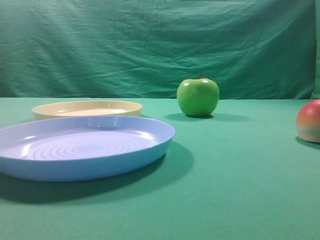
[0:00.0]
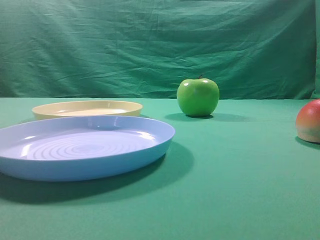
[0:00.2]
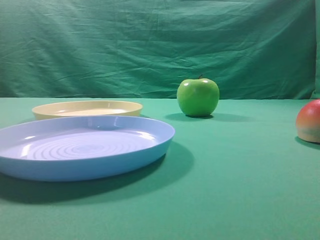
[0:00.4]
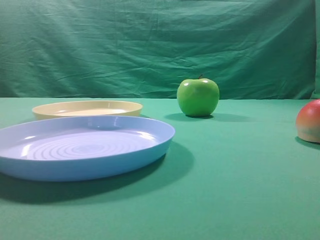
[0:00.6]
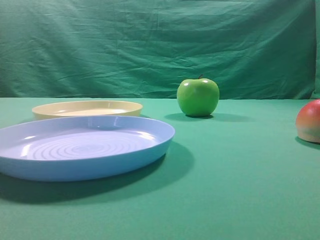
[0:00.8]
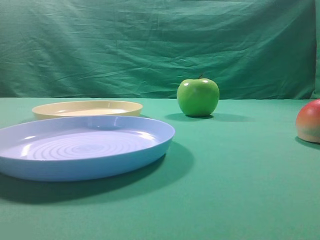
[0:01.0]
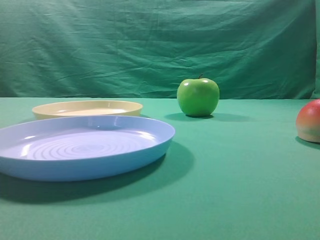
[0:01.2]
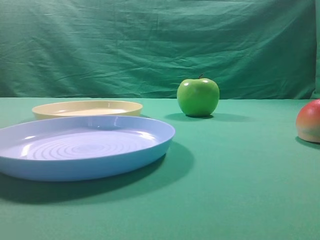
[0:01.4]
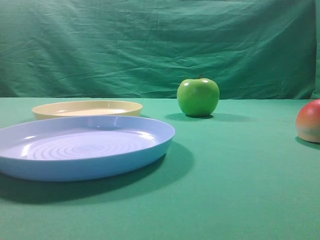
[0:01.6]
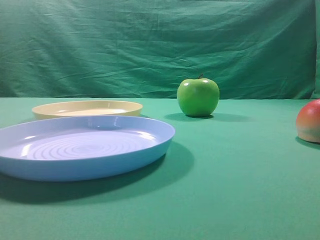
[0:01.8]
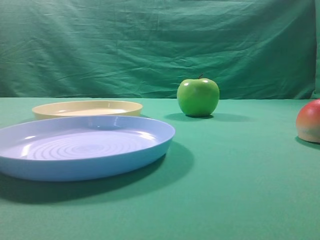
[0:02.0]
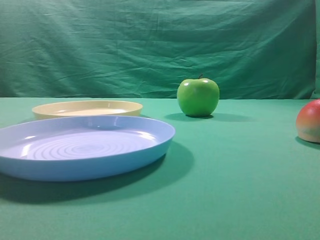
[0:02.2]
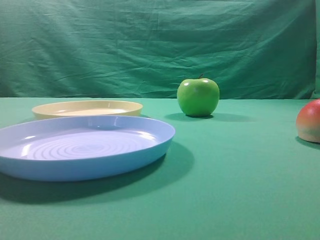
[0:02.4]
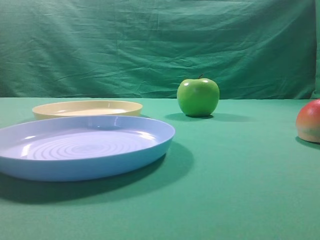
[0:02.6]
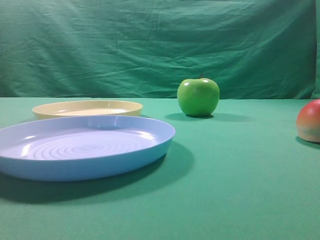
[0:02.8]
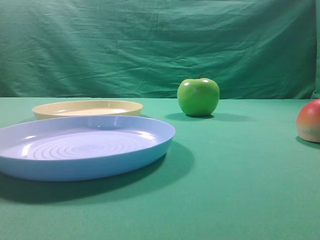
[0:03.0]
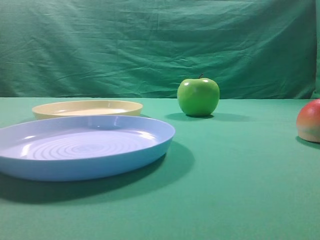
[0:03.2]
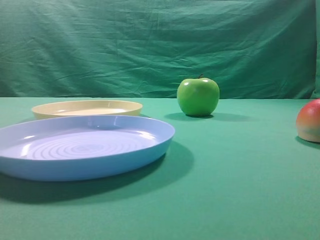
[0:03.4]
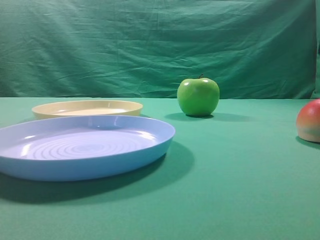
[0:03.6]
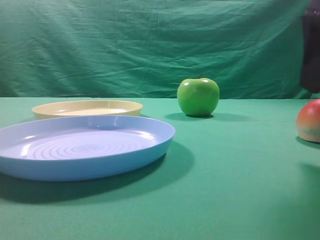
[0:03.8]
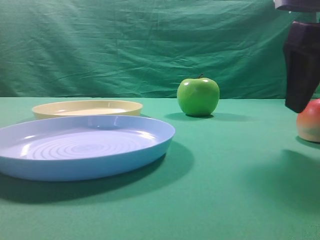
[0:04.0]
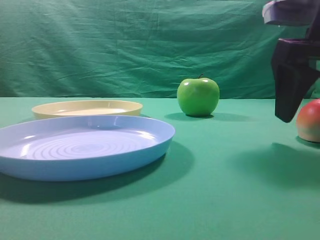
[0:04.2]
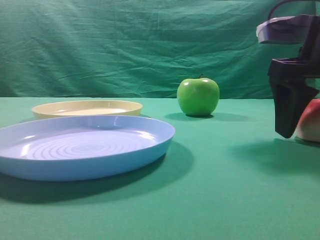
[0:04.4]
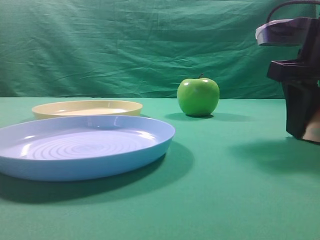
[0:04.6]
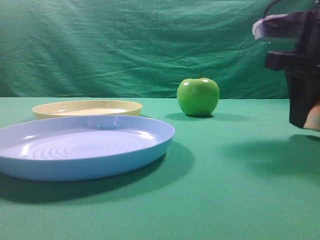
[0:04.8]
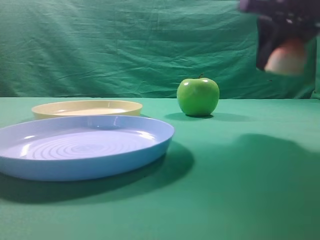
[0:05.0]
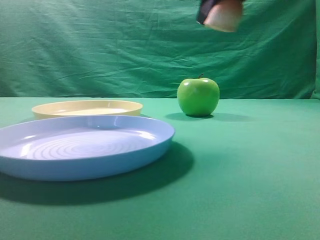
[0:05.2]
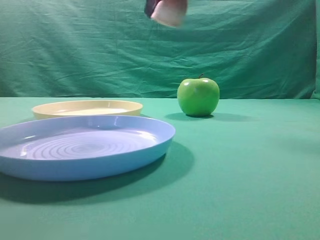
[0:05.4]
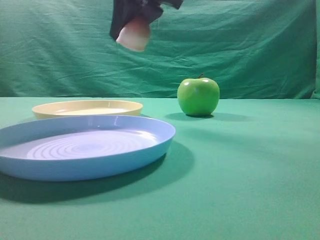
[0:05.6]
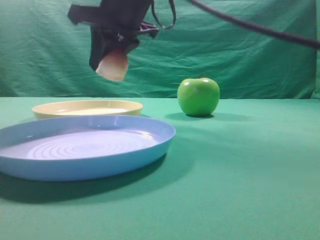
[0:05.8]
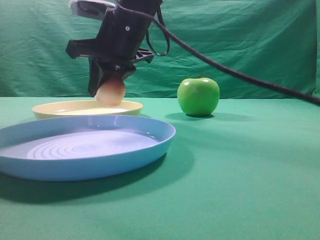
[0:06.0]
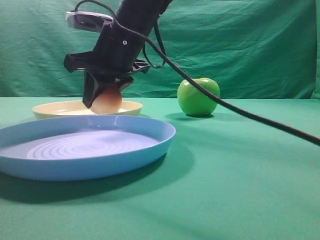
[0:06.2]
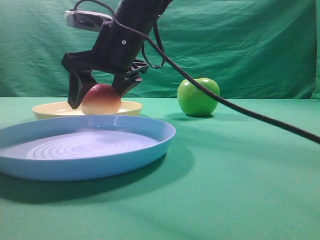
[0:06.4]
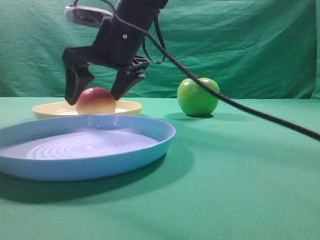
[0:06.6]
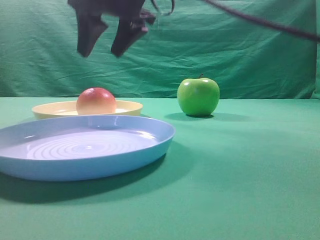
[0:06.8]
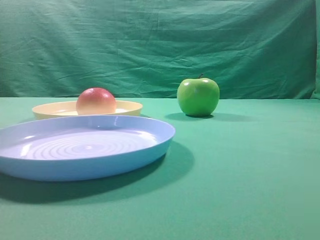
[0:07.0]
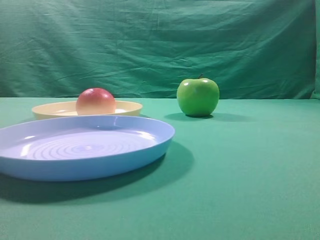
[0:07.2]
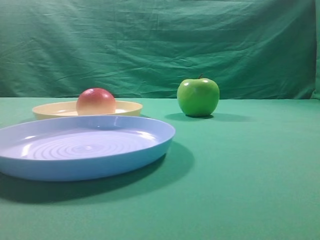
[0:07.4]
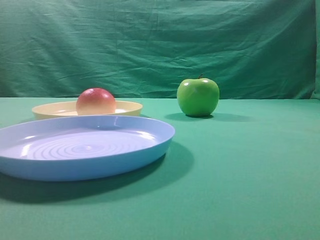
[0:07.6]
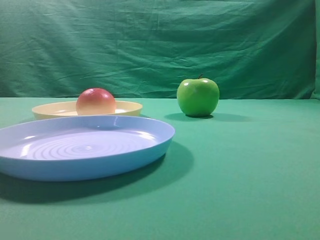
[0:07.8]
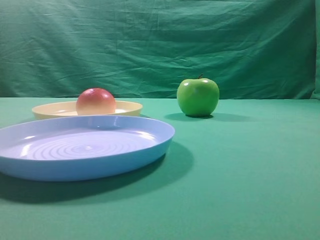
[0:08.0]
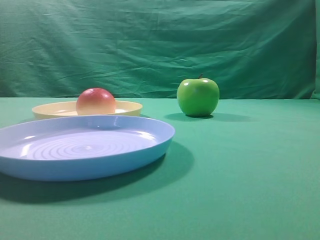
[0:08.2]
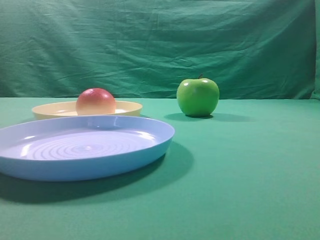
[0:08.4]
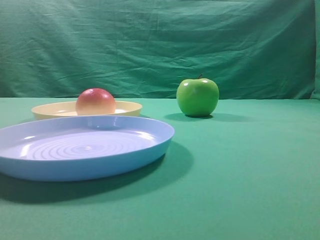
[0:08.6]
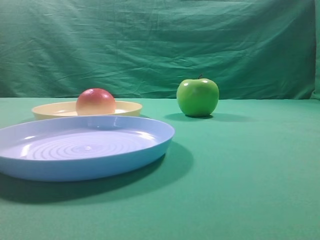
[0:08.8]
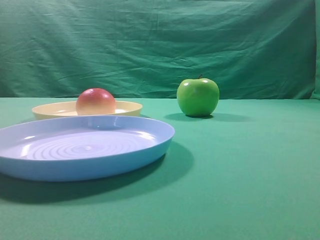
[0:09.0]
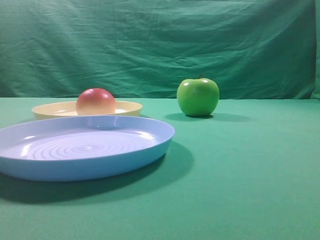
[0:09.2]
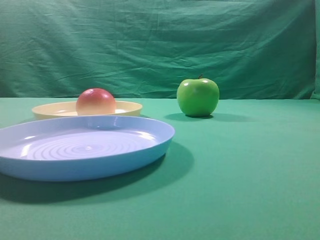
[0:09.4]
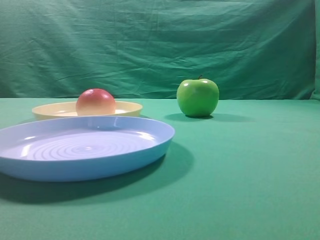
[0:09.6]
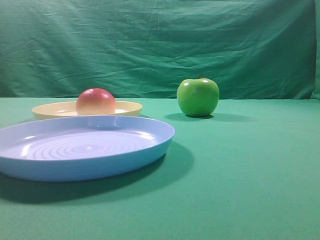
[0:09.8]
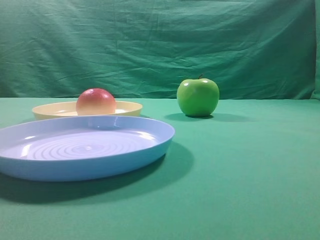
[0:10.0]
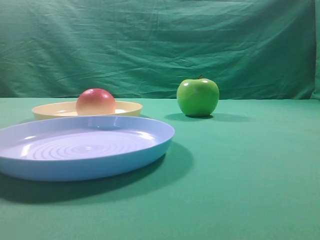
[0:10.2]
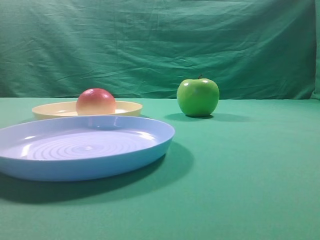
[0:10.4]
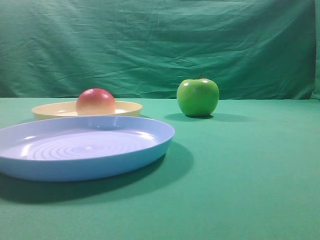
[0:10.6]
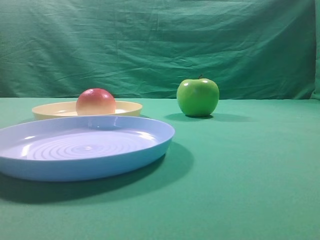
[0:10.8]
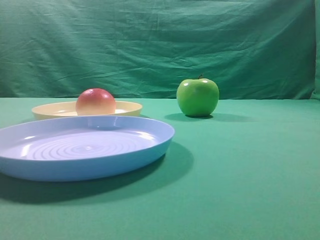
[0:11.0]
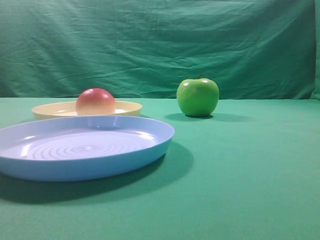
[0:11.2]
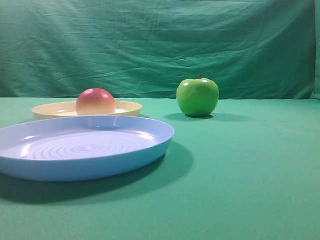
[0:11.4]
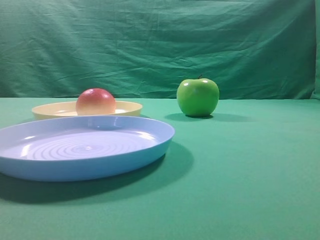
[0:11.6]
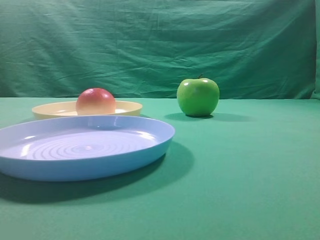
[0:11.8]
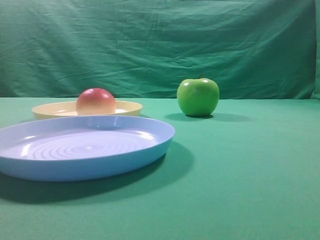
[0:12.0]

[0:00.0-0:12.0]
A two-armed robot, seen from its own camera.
Step, 0:05.0 to 0:06.6: Place the picked object on the yellow plate.

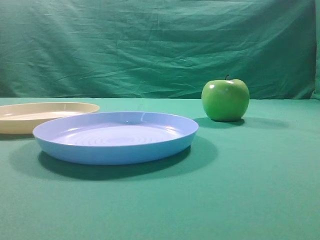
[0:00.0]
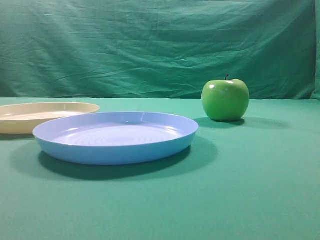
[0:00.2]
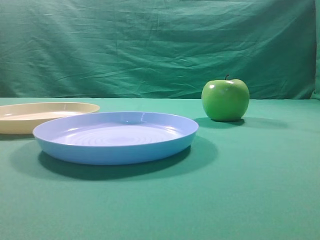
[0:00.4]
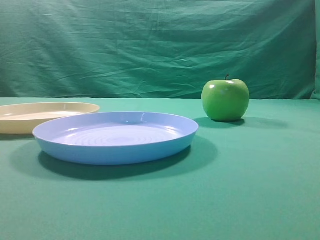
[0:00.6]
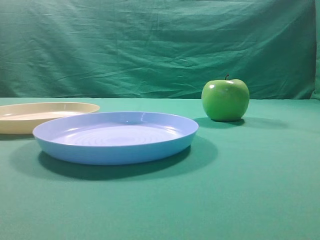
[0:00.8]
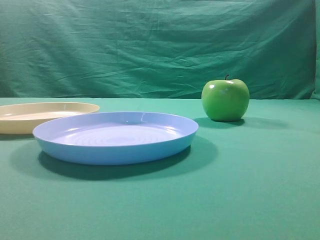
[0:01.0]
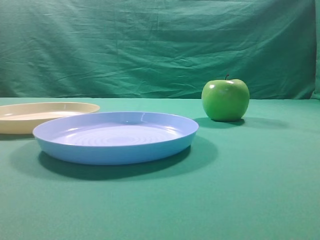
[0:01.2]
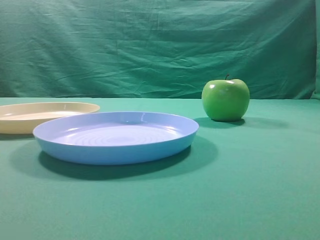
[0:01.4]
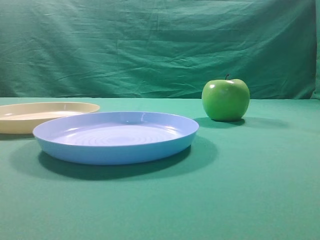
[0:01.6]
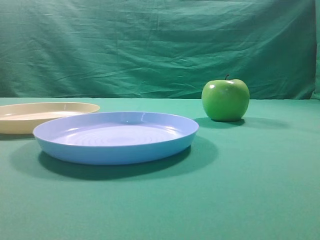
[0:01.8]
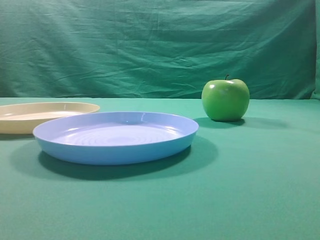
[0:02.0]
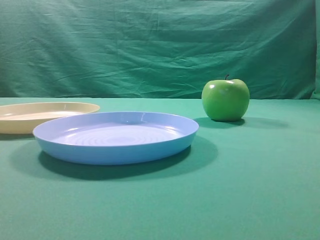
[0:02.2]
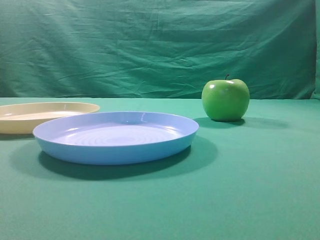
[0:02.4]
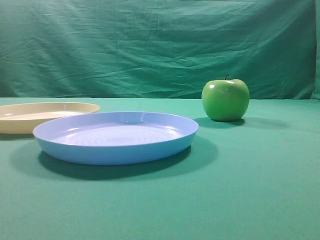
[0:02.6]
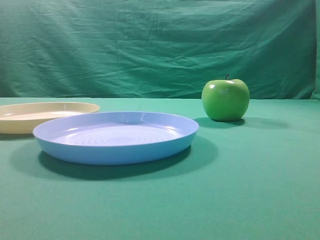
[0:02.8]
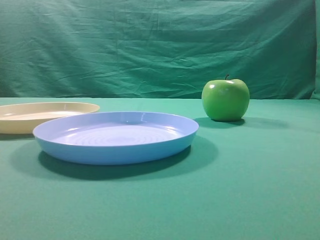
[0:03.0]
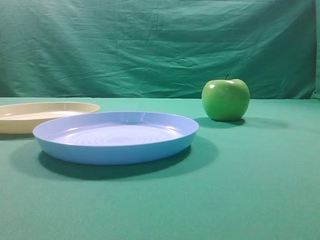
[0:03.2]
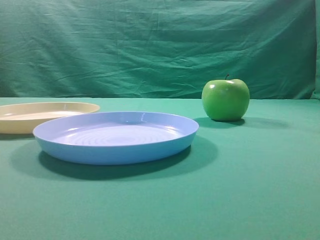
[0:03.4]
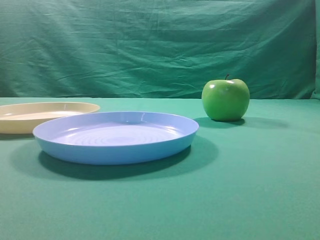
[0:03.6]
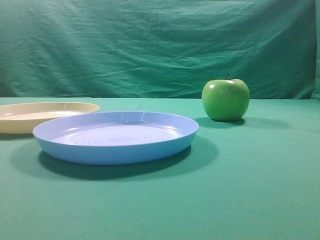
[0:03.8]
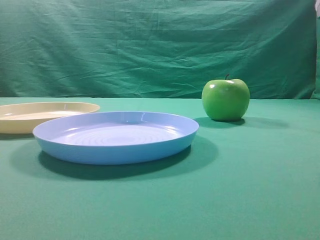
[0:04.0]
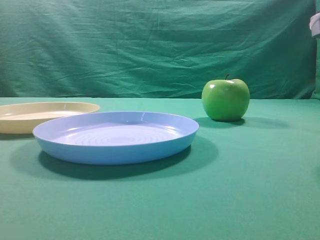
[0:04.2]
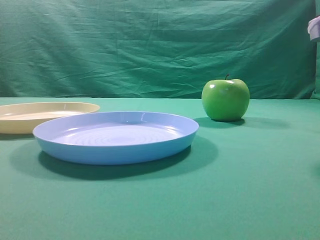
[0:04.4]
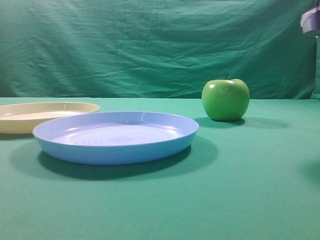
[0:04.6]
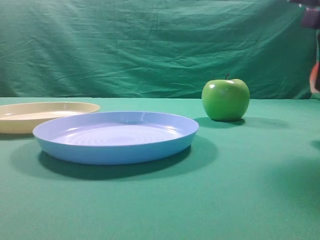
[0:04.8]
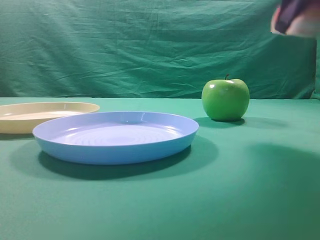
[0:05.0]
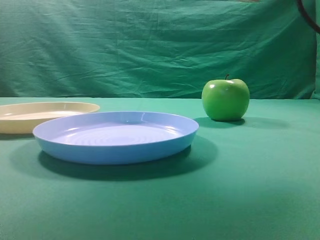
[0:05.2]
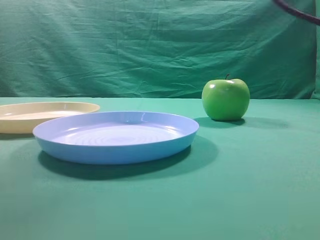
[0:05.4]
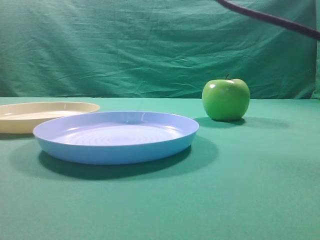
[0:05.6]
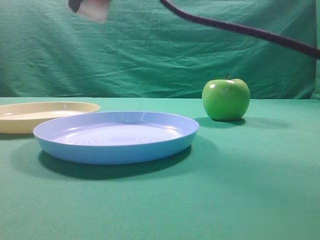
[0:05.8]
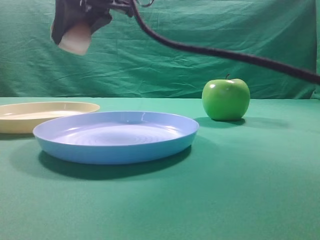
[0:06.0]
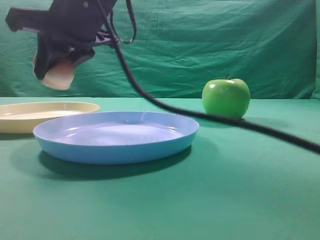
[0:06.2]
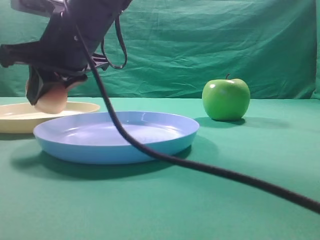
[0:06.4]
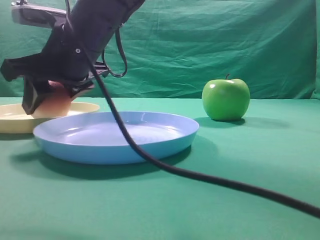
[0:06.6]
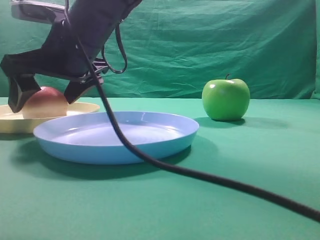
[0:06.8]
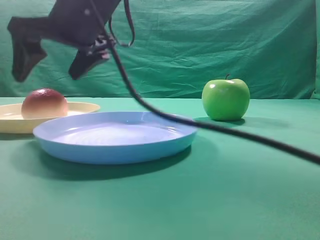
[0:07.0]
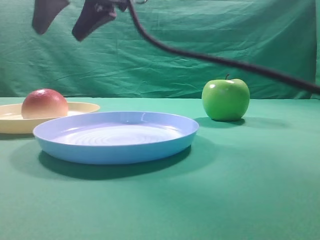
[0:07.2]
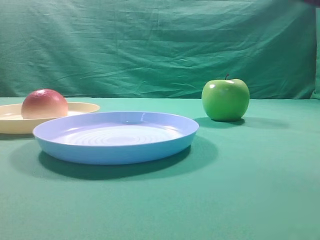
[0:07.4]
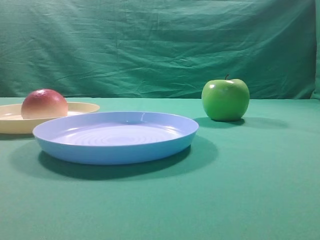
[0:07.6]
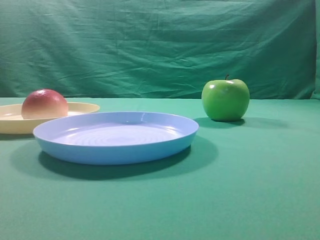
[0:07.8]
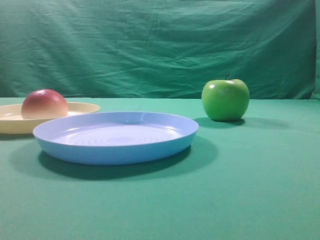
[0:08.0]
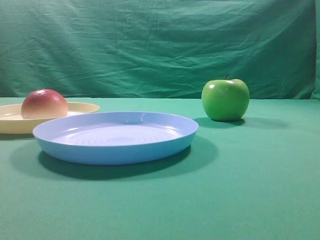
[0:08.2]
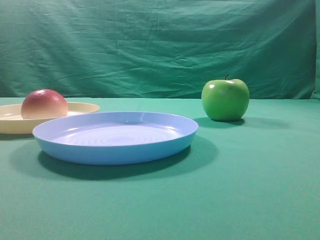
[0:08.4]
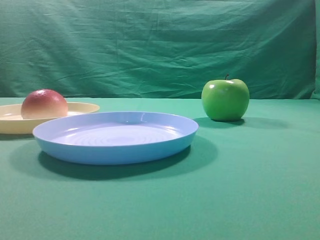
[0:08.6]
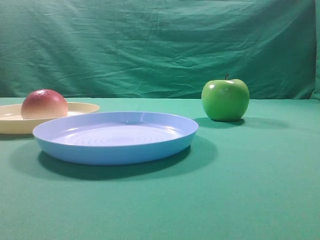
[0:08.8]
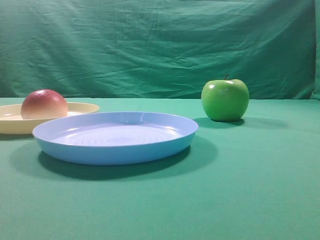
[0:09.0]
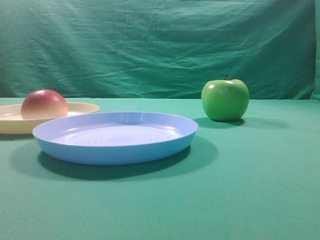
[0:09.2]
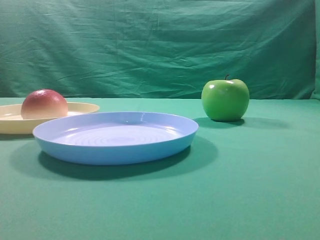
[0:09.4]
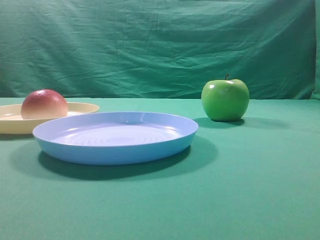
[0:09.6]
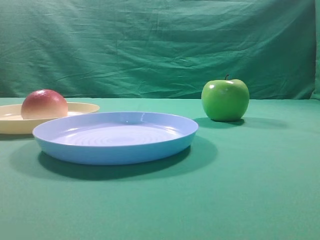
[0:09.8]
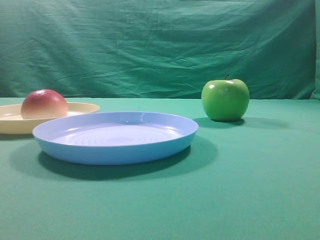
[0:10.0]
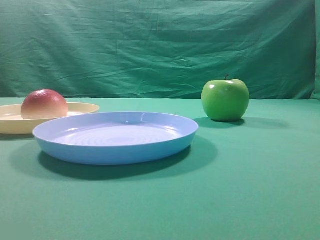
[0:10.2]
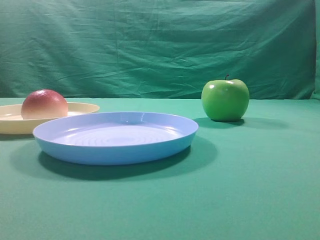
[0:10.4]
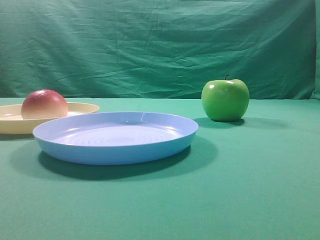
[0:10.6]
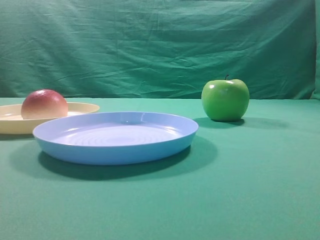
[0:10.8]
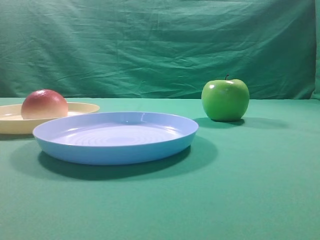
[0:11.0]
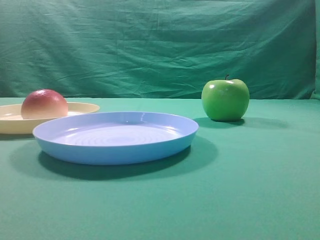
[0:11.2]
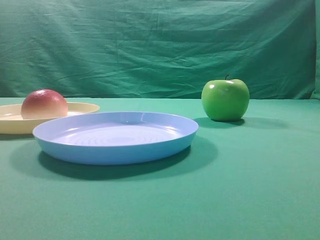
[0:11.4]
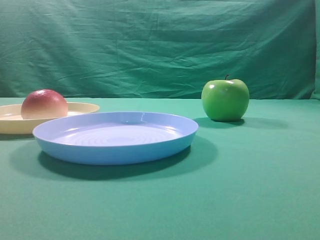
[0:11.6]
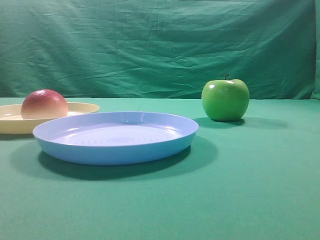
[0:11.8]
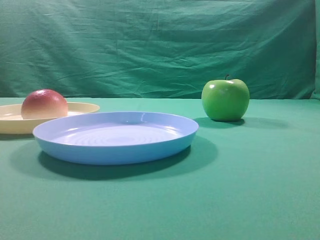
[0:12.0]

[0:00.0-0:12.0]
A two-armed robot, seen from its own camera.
Step, 0:05.0 to 0:07.0: Place the picked object on the yellow plate.
